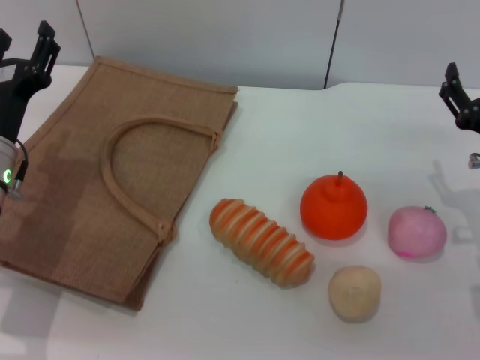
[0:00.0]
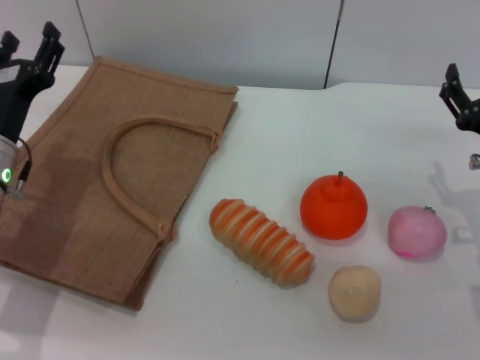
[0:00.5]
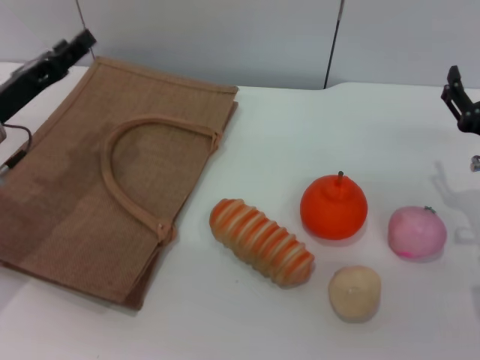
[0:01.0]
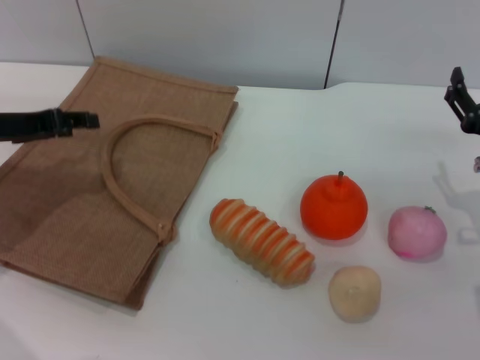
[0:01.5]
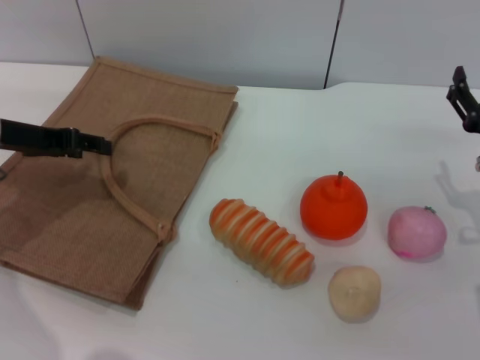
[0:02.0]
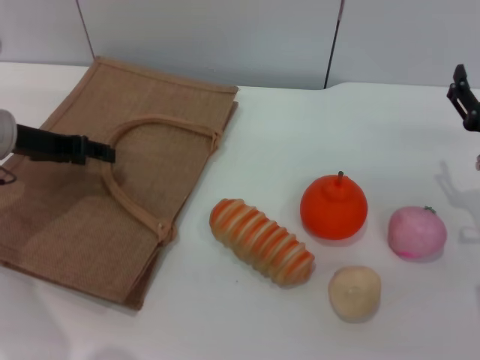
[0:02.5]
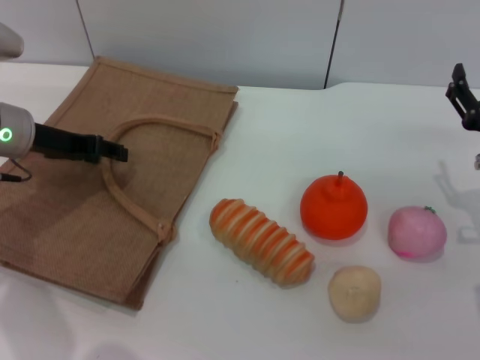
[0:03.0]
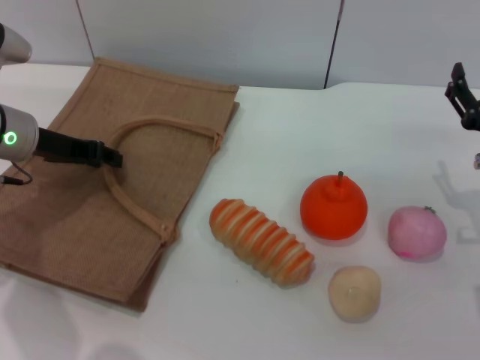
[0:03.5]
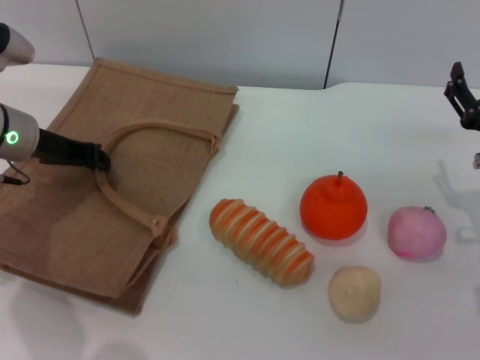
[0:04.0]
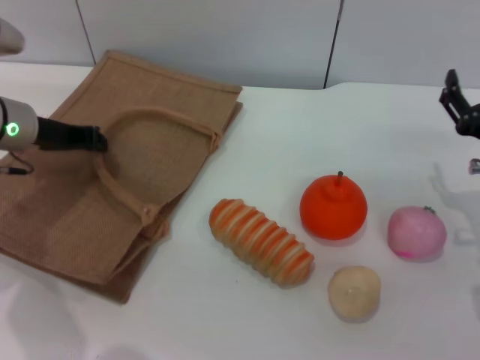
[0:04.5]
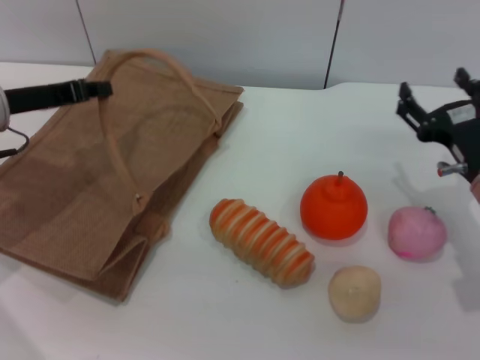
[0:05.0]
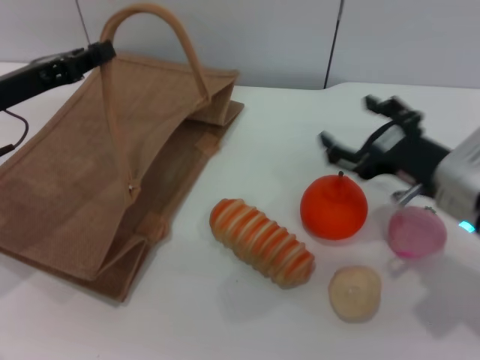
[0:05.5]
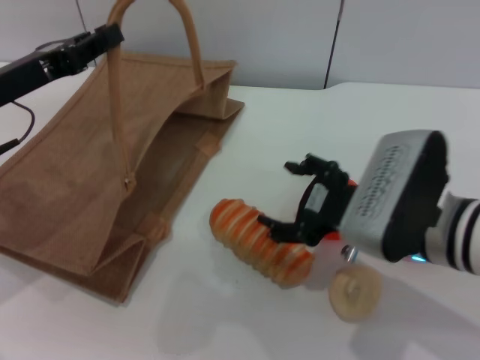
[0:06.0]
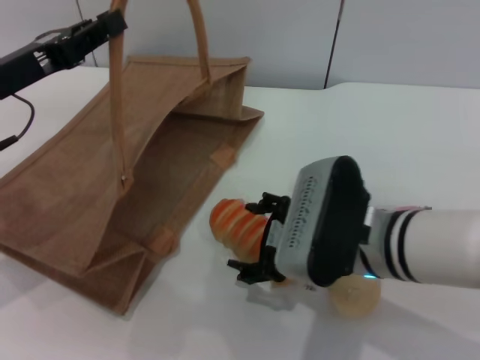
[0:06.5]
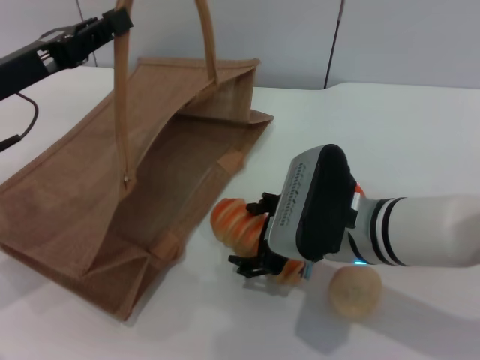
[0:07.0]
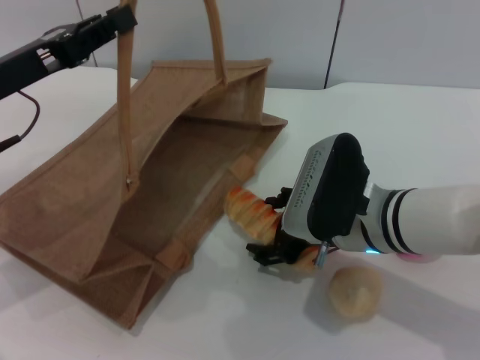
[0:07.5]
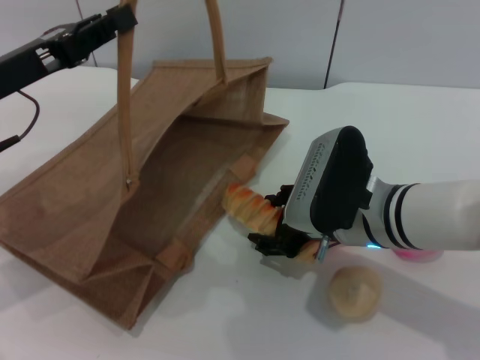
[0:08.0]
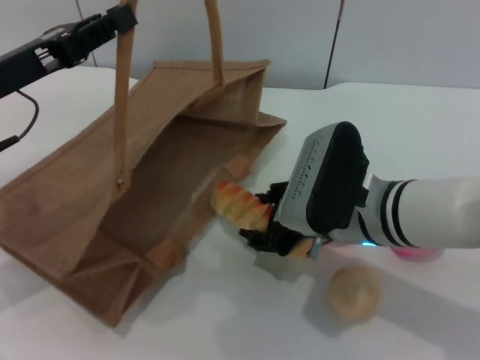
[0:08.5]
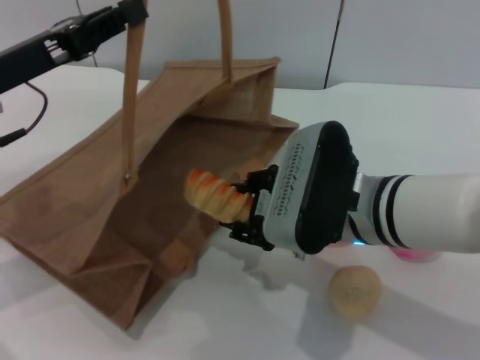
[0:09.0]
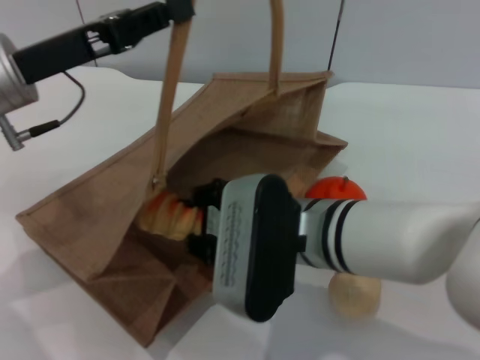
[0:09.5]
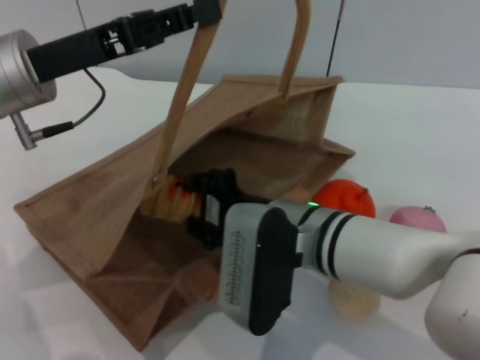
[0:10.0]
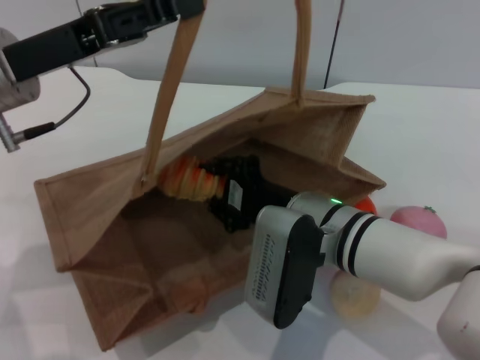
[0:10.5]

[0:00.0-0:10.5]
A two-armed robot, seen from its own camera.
Task of the whole recording: pick up the bread from the table and place it in the brown handbag.
Step, 0:00.0 to 0:04.0: Lift the woven bag with the left gripper to open it.
Step, 0:04.5 to 0:08.5: Pick up the bread with the right gripper.
0:00.0 to 0:02.0: The left gripper travels upward and forward by roughly 10 cm.
0:02.0 to 0:04.0: The left gripper closes.
0:04.0 to 0:06.5: The left gripper heads backward, covering some 5 cm, while the right gripper shifts roughly 15 cm to the left.
0:06.5 to 0:08.5: The right gripper closes its fingers.
0:08.5 to 0:10.5: The left gripper changes place by some 5 cm, while the right gripper closes up.

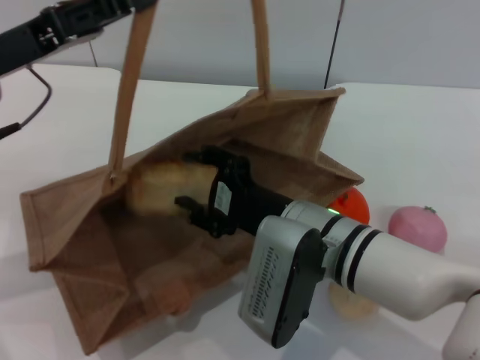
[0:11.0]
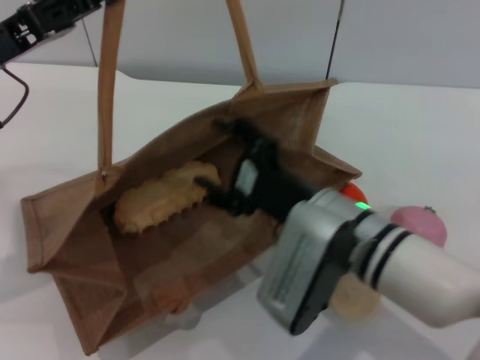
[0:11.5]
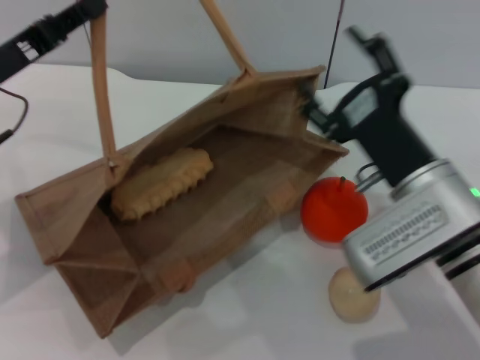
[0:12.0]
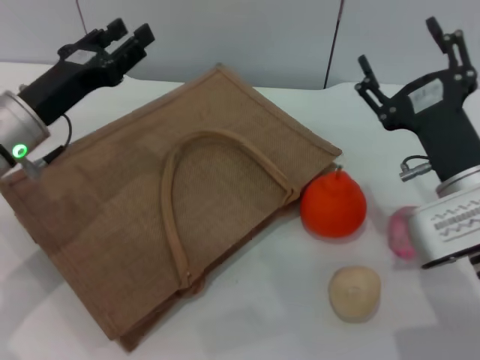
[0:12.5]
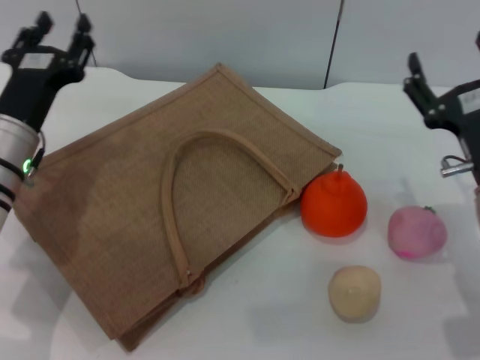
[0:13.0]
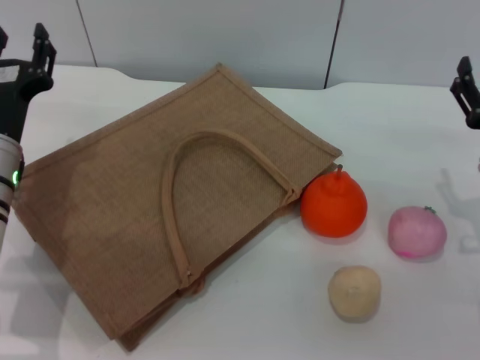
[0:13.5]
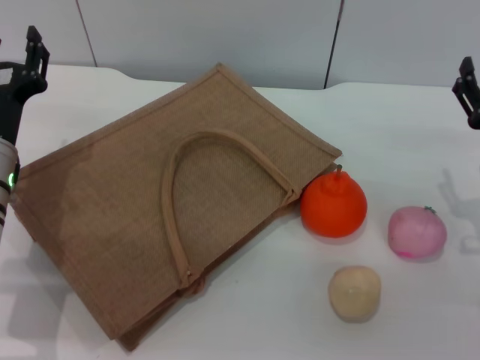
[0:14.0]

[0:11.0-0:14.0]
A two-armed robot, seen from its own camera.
Task of the whole recording: pick up the bread from the table and place it in the brown handbag.
Step, 0:12.0 to 0:12.5: Lower the woven bag with the left gripper to close it.
0:11.0 to 0:12.5: The right gripper goes approximately 10 cm to the right, and opens. The left gripper goes roughly 10 cm downward, and opens.
0:12.5 to 0:14.0: The left gripper changes place by about 5 cm. The right gripper shifts some 5 cm to the right.

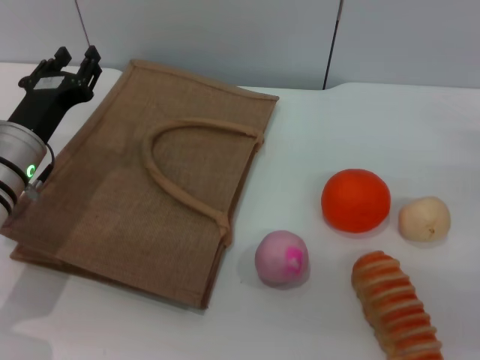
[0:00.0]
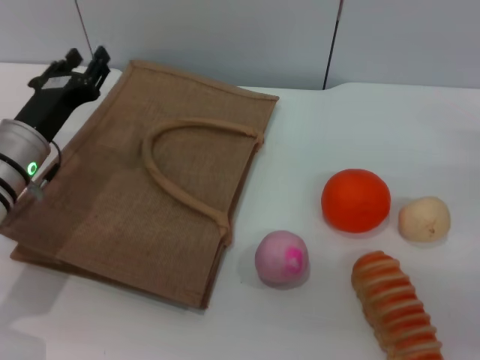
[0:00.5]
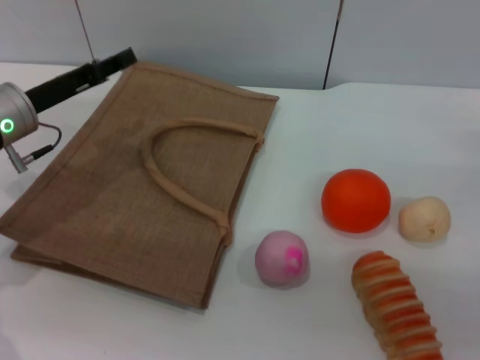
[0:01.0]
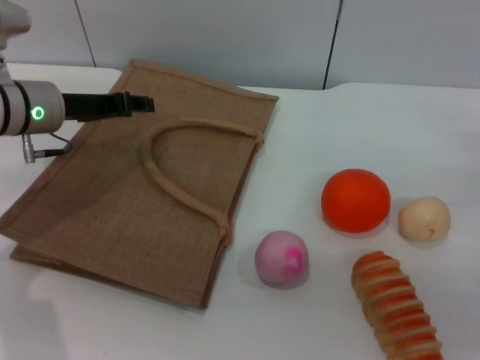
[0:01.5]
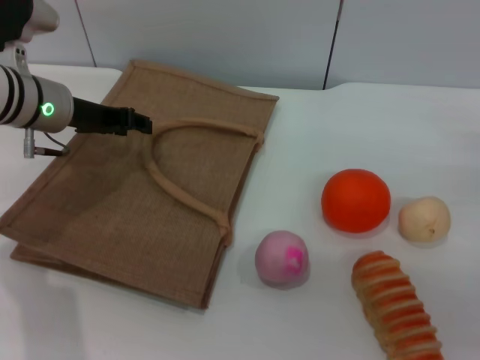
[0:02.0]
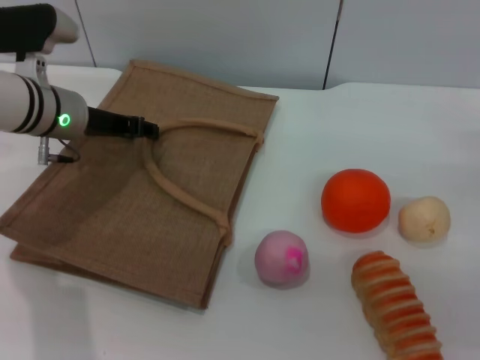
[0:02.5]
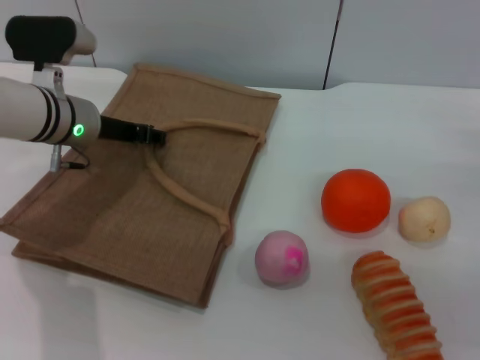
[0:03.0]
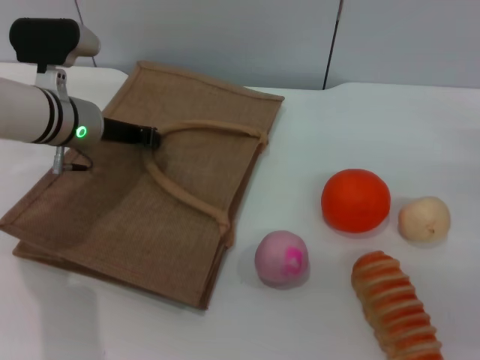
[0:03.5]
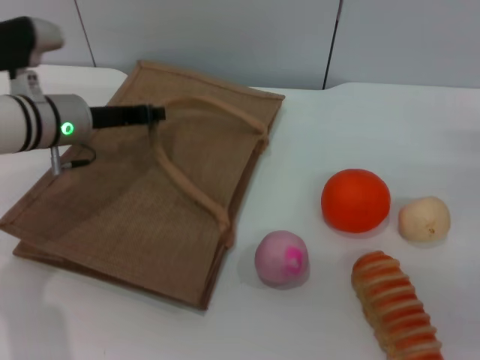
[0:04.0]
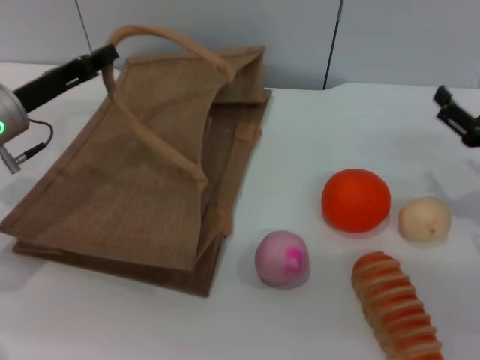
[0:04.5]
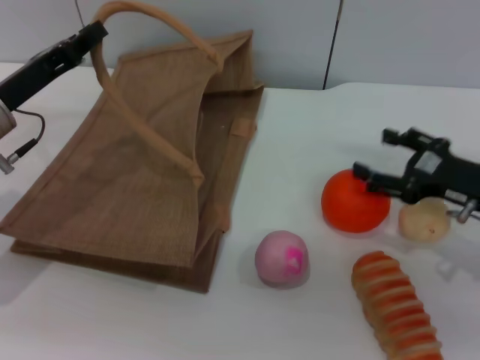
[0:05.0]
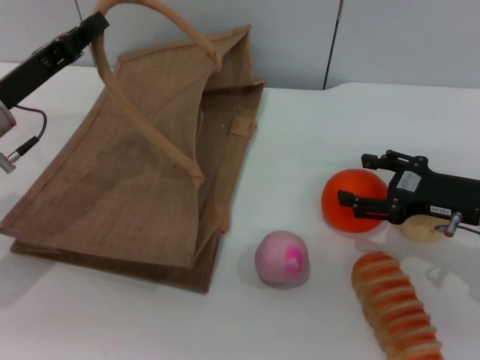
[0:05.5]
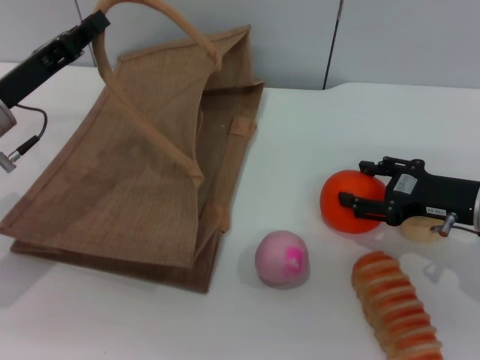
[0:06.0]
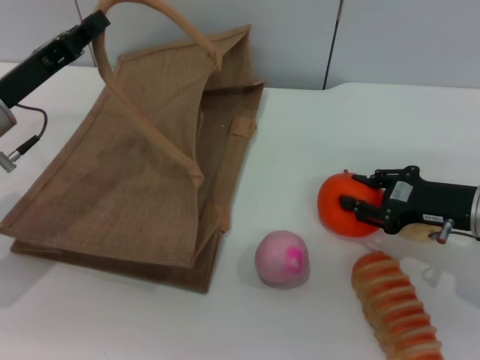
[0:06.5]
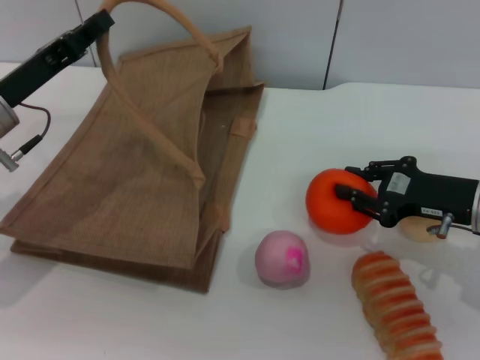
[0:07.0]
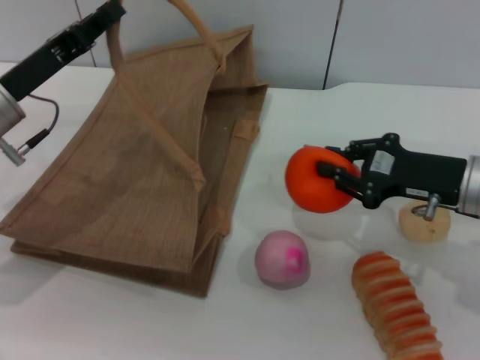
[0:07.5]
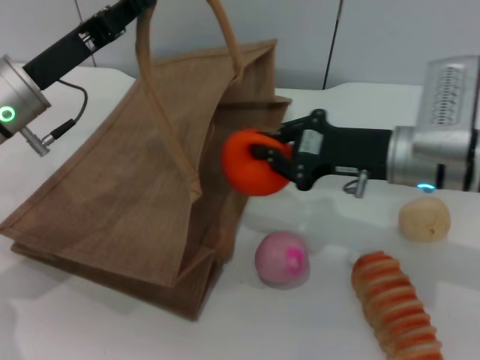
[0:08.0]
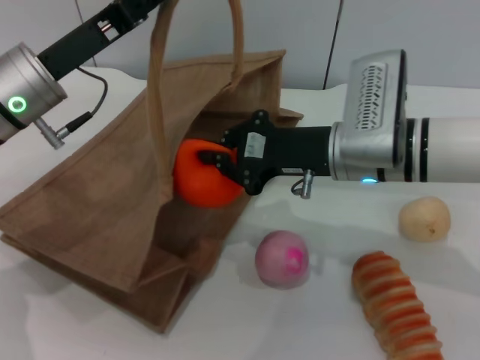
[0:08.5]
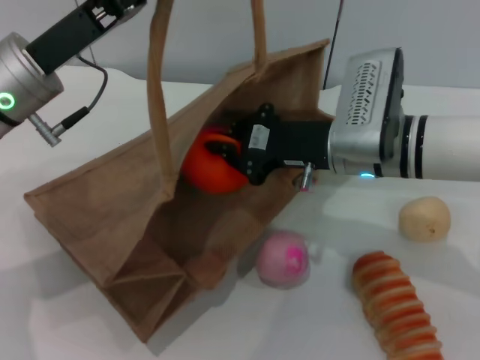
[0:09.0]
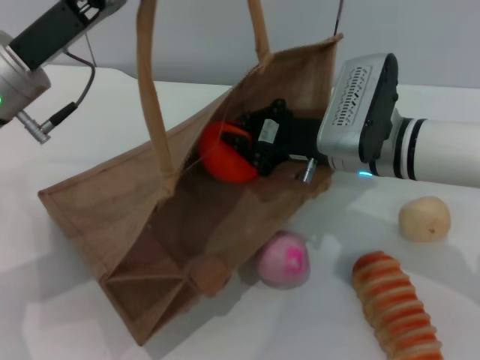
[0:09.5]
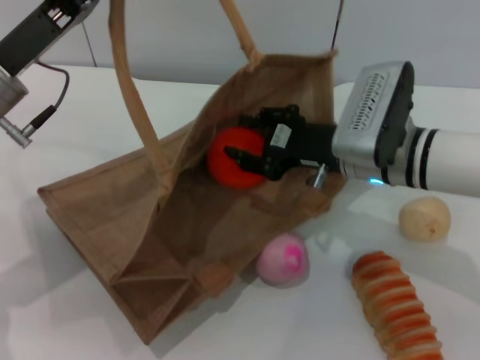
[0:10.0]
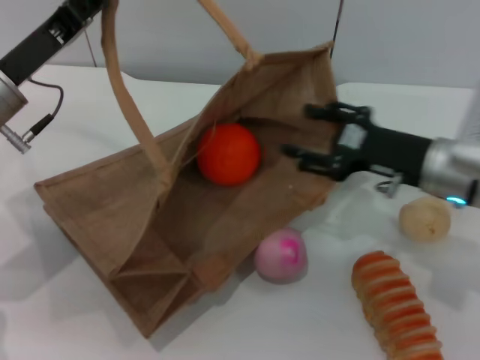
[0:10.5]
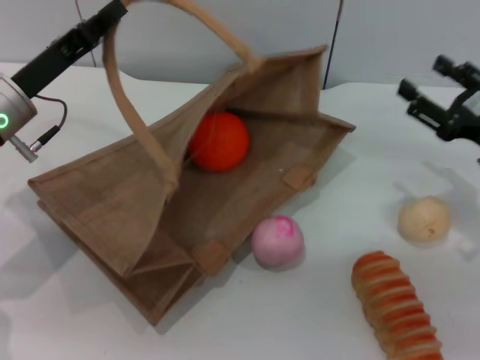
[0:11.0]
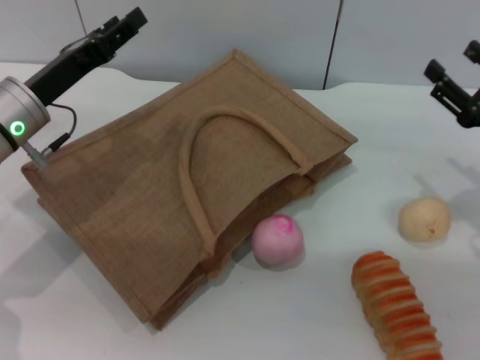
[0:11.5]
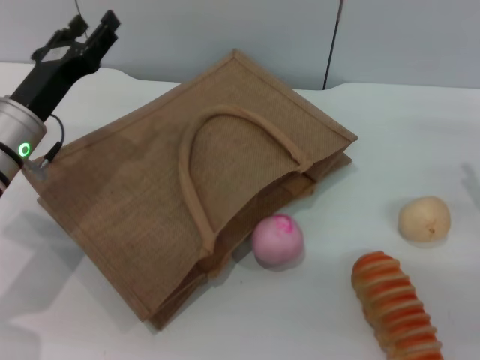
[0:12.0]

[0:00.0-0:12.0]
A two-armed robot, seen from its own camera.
Task of the whole recording: pick up the orange from the table and place it in the brown handbag.
Step, 0:00.0 to 0:04.5: Lift the woven bag with the left gripper to open it.
Step, 0:05.0 to 0:07.0: Pick up the orange with the right gripper.
Step, 0:07.5 to 0:10.0: Place the orange into the woven bag with the right gripper.
Step, 0:10.5 to 0:11.5: Lower the woven bag with the left gripper to close it.
0:00.0 to 0:02.0: The left gripper goes roughly 10 cm forward and upward.
0:02.0 to 0:04.0: The left gripper closes up.
0:04.0 to 0:06.0: The left gripper shifts roughly 10 cm backward and to the left; the right gripper heads to the left, covering roughly 5 cm.
0:06.0 to 0:08.0: The right gripper shifts some 10 cm to the left, and closes.
0:10.0 to 0:12.0: The right gripper moves to the right, some 20 cm, and opens. The left gripper moves downward, about 5 cm, and opens up.
